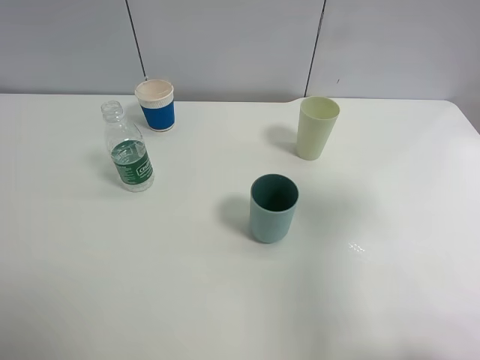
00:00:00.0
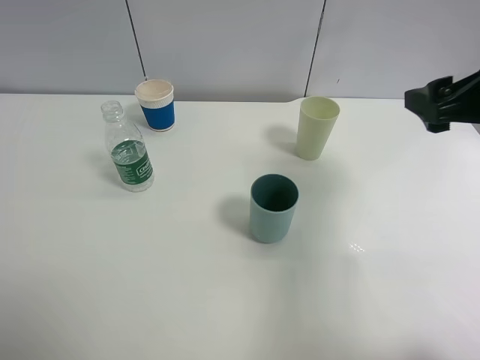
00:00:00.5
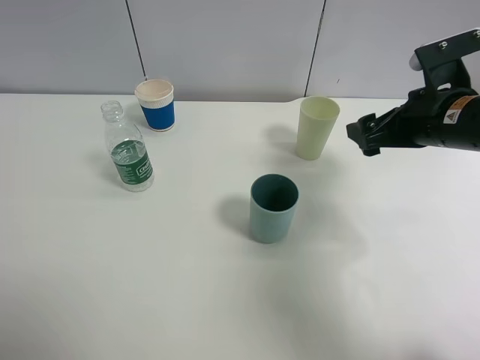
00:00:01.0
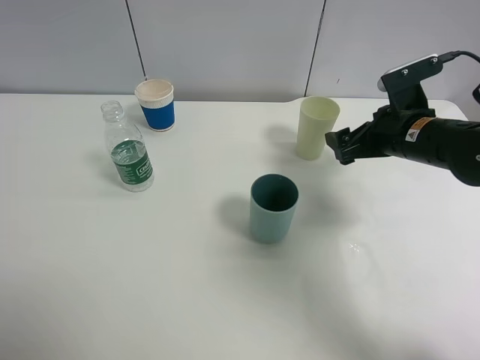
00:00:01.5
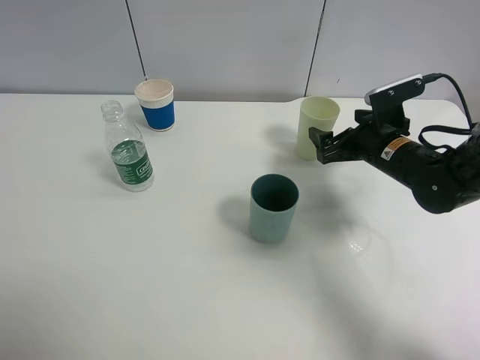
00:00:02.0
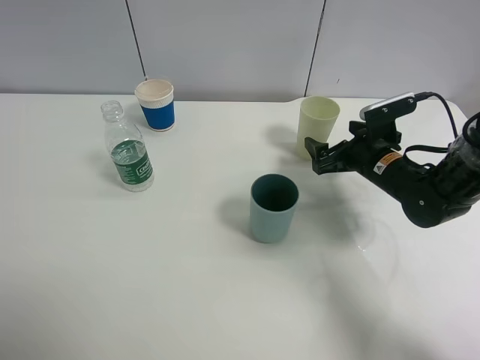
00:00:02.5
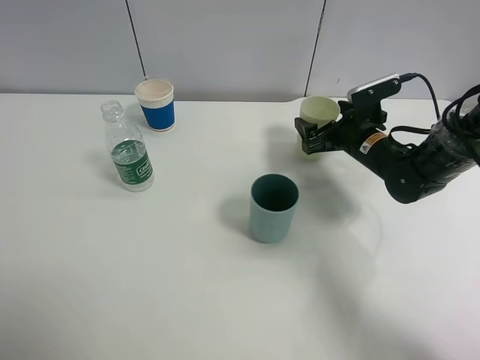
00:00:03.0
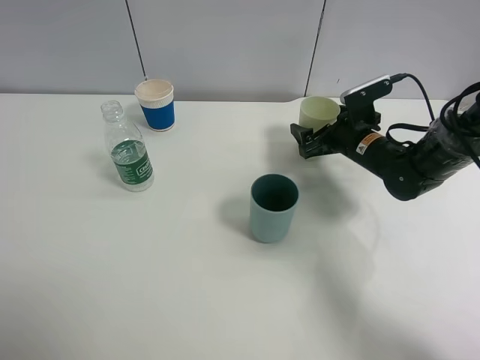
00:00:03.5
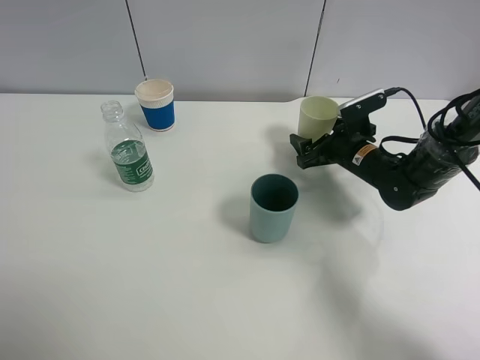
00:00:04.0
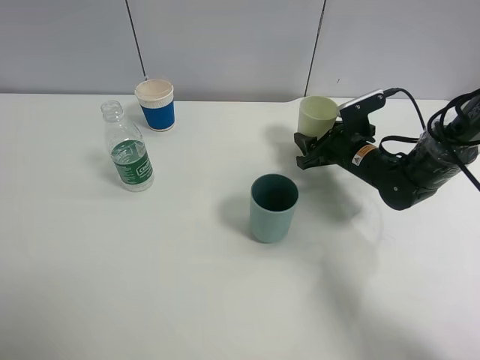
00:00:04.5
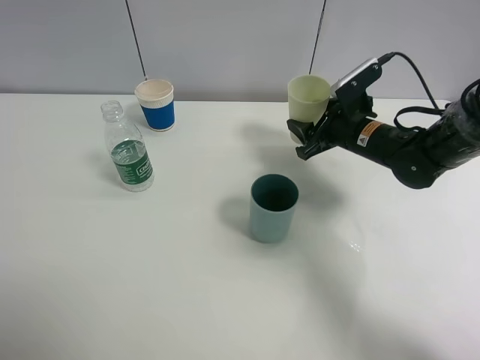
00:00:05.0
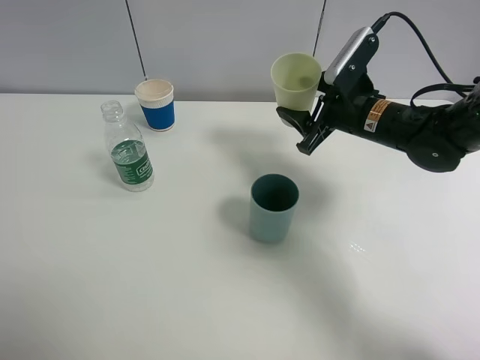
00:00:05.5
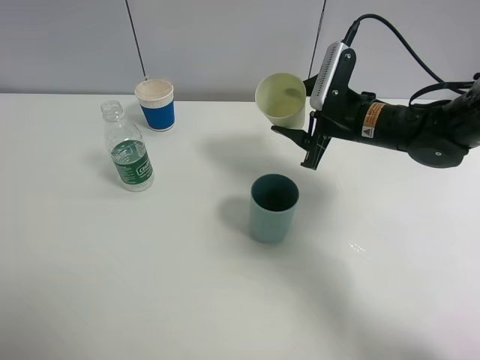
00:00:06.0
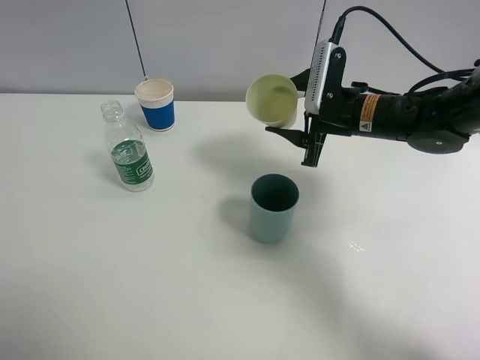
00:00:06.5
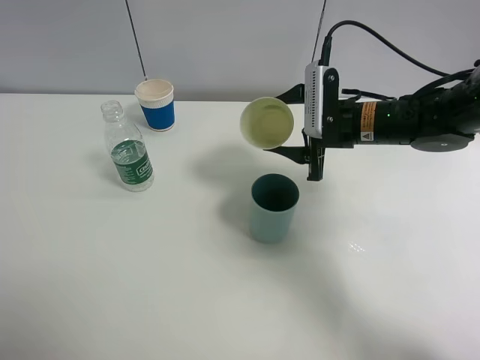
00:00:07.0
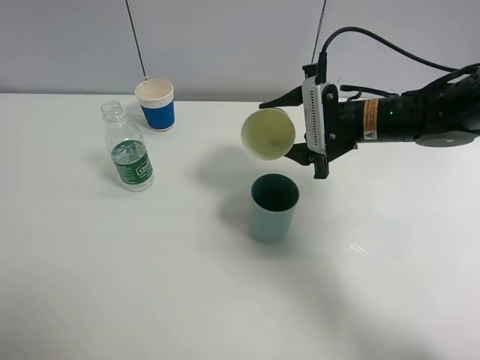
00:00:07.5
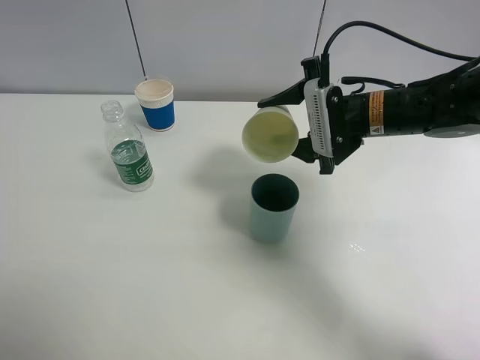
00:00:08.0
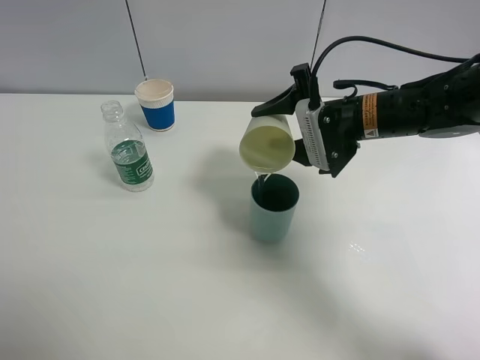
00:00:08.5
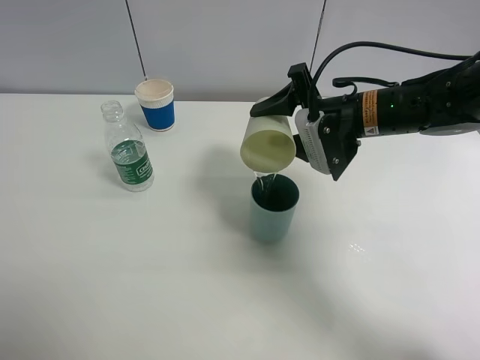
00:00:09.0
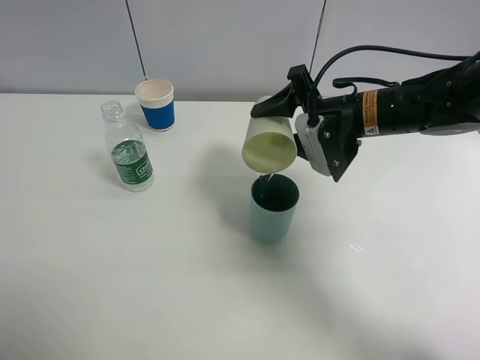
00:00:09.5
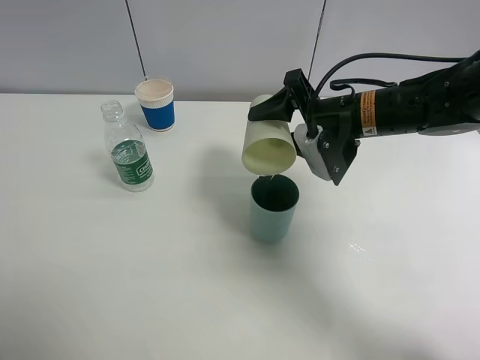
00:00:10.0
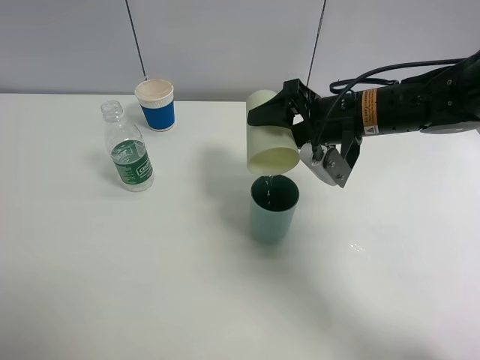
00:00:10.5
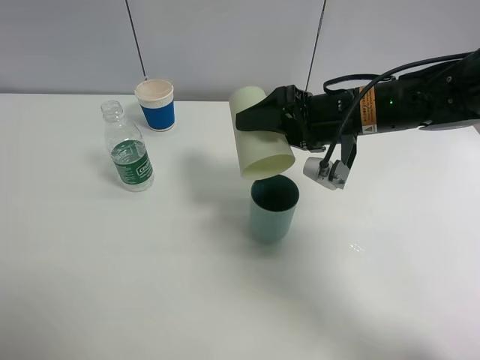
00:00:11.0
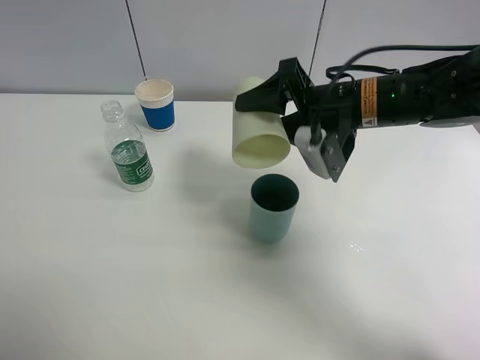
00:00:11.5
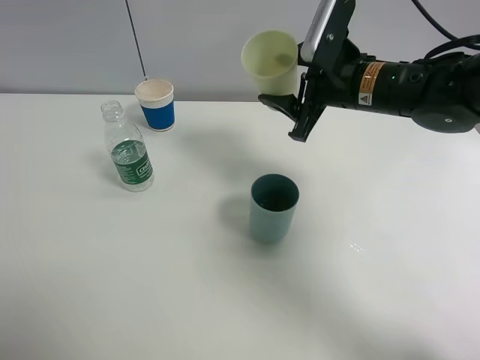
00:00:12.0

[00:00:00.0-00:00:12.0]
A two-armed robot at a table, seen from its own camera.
Task of the whole recording: use a clamp to hold the bottle of the drink, pour the beverage into a random cup, then clamp the cup containing the drink and pour the drink into another random cup.
Step, 00:00:00.0 to 00:00:04.5: Pick up the green plastic cup with right gripper.
Step, 00:00:05.0 to 00:00:11.5: Pour water into the blue plastic cup with right gripper.
00:00:00.0 to 00:00:02.0: The right gripper moves downward and forward, approximately 25 cm.
00:00:02.0 to 00:00:04.0: The right gripper moves some 5 cm.
00:00:04.0 to 00:00:06.0: The right gripper goes some 10 cm upward, and closes.

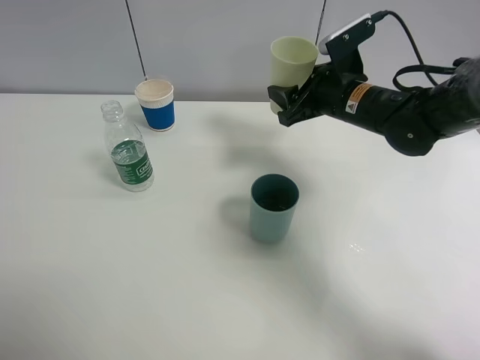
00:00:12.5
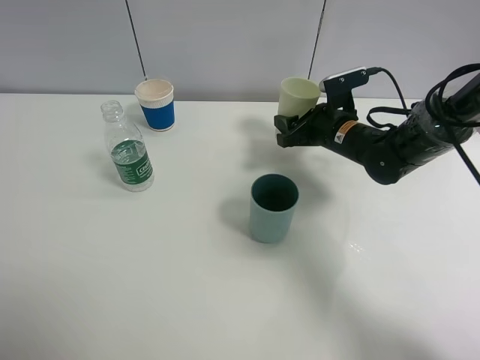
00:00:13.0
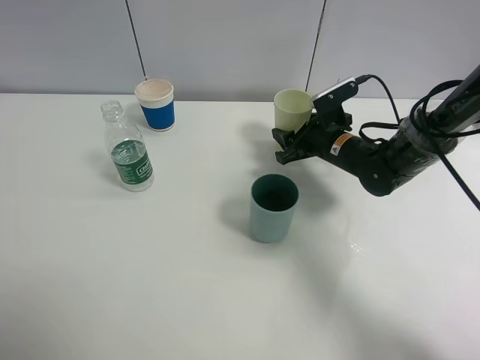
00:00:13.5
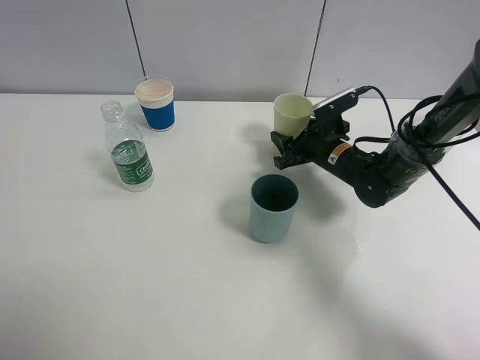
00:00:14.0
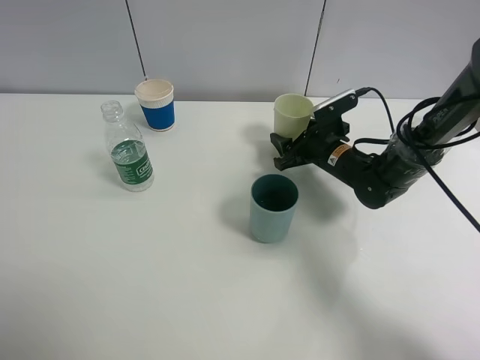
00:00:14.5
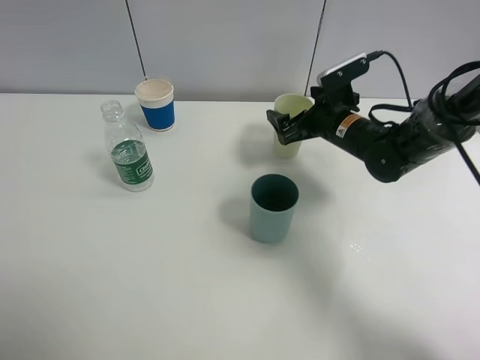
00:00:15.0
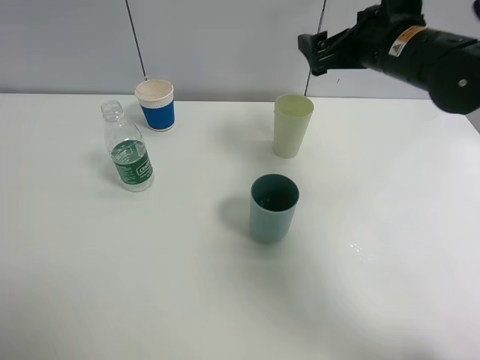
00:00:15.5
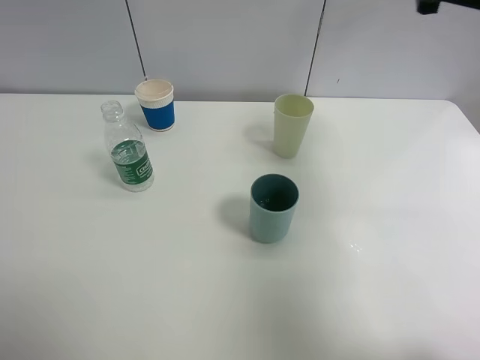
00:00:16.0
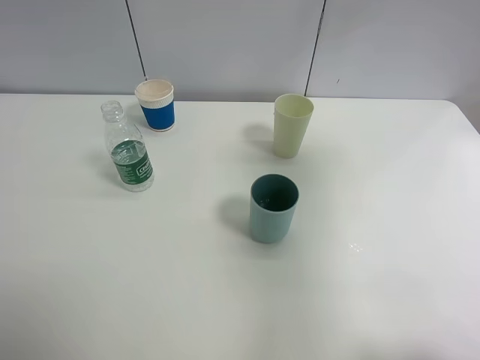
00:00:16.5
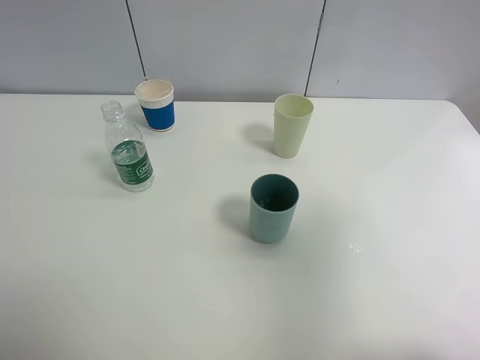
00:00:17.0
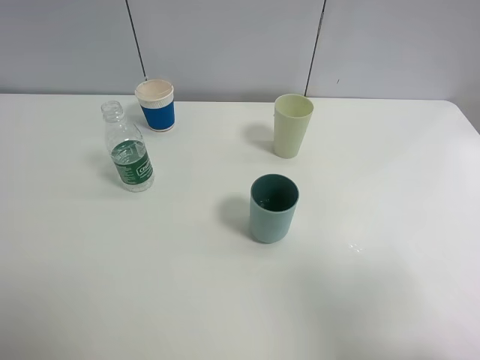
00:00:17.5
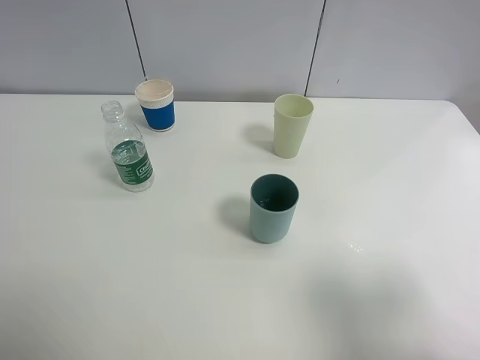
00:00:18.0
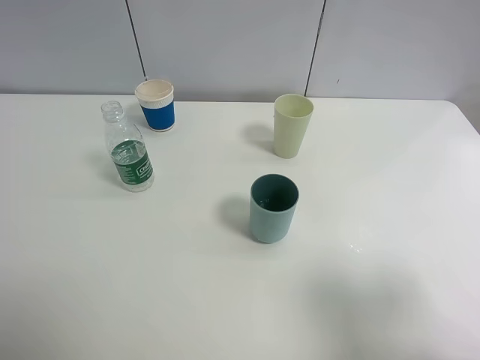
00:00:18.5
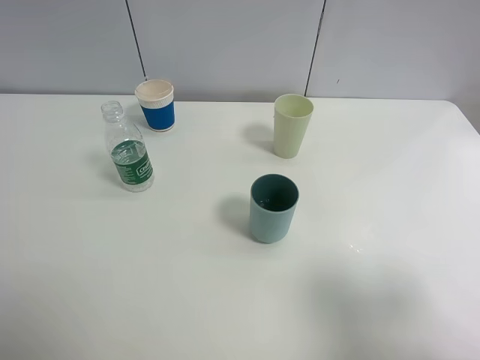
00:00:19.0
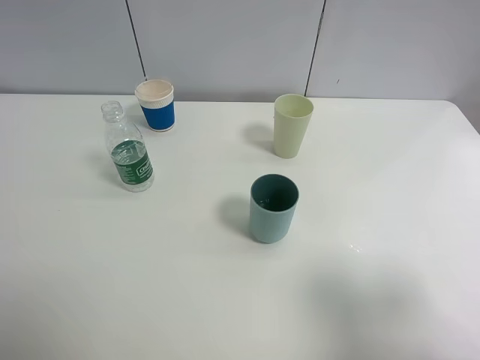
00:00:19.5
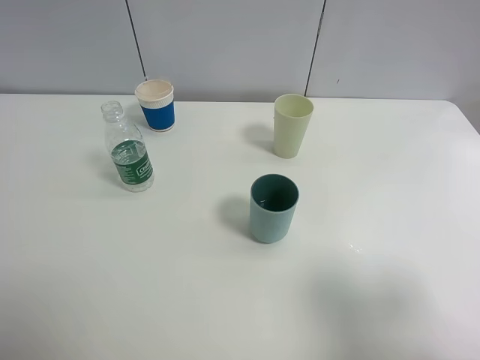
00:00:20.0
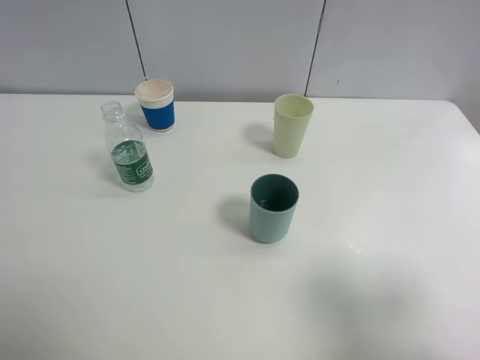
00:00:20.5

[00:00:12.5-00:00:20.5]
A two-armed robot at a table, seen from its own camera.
Task of the whole recording: use a clamp to hold the bottle of the drink, pour the beverage into a random cup, then clamp the cup containing the drink and pour the drink into another random cup.
Step, 00:00:12.5 to 00:00:15.0: Place the green plastic cup on the table with right gripper.
00:00:12.5 to 00:00:14.5: The right gripper moves downward, approximately 10 cm.
00:00:14.5 to 00:00:16.5: The right gripper moves upward and backward, about 40 cm, and opens.
00:00:16.5 to 00:00:18.5: The right gripper heads backward and downward, covering some 20 cm.
